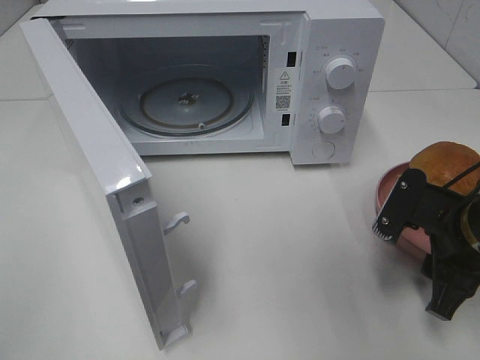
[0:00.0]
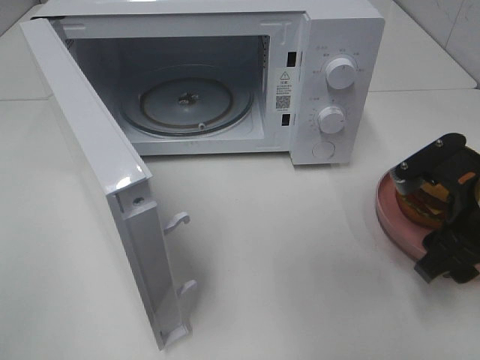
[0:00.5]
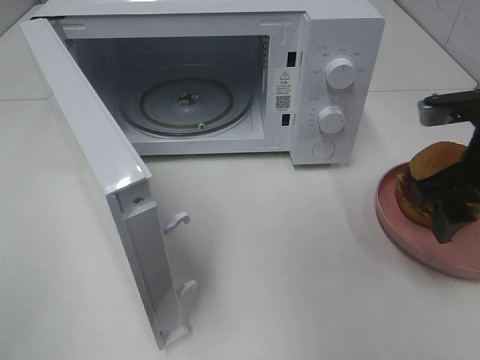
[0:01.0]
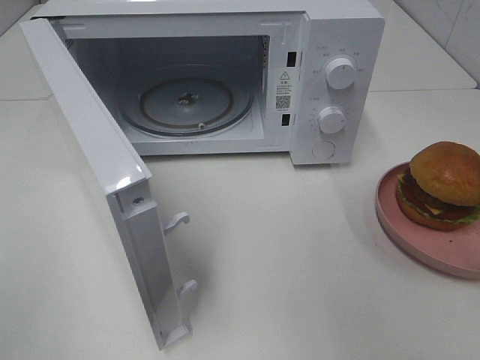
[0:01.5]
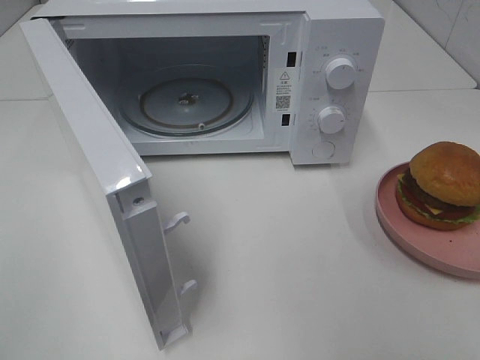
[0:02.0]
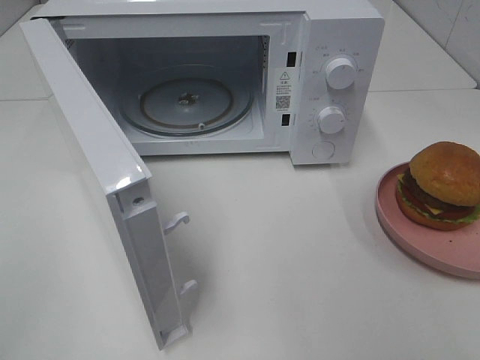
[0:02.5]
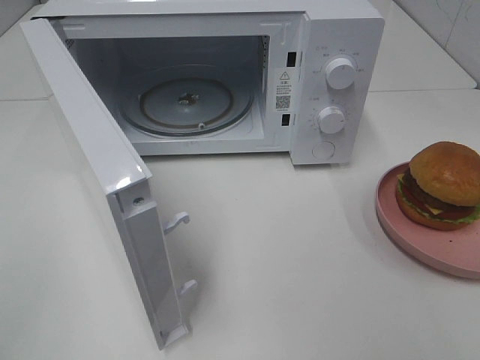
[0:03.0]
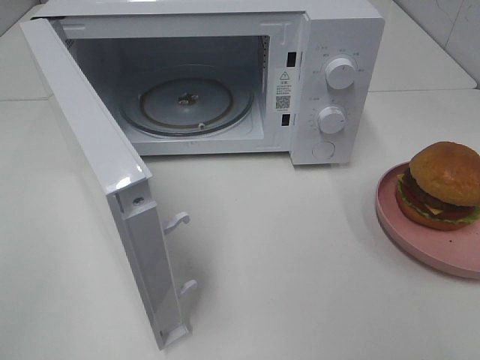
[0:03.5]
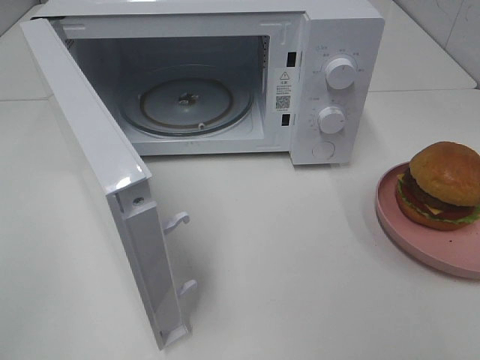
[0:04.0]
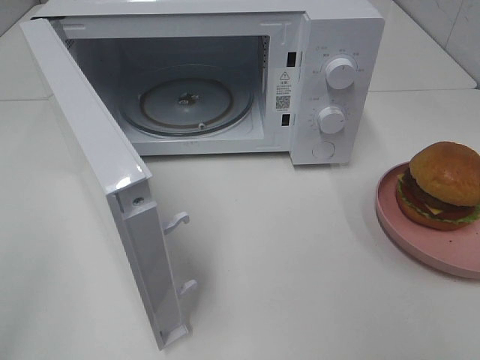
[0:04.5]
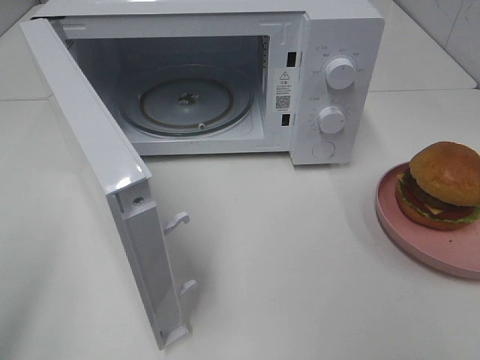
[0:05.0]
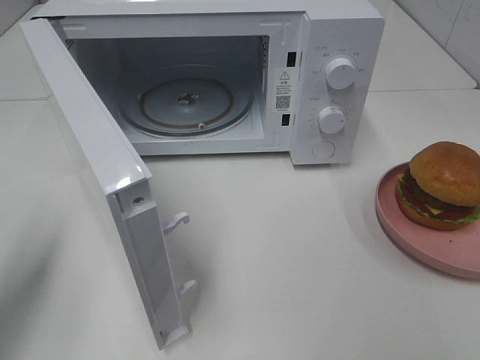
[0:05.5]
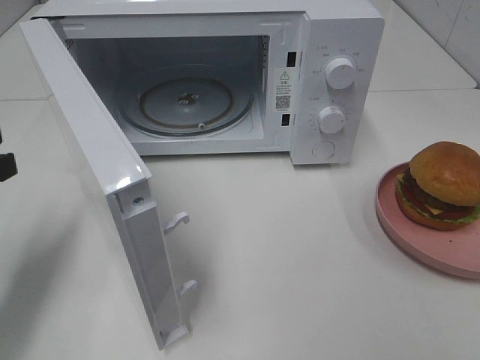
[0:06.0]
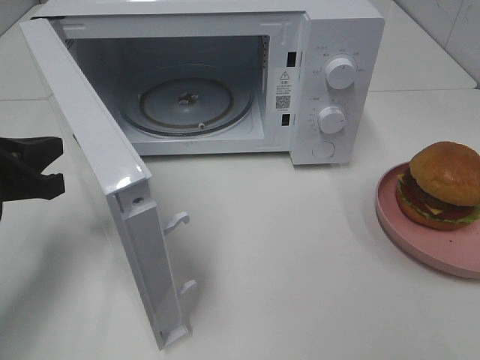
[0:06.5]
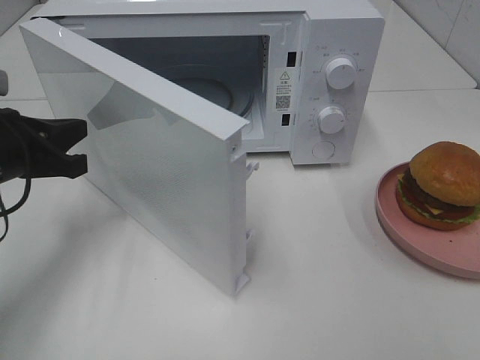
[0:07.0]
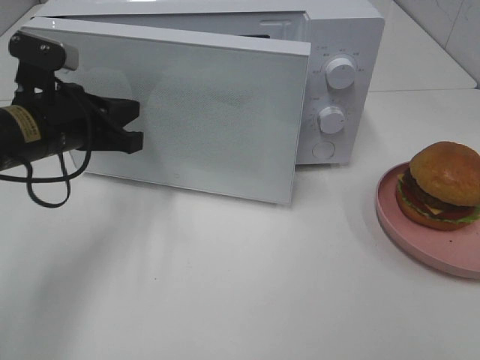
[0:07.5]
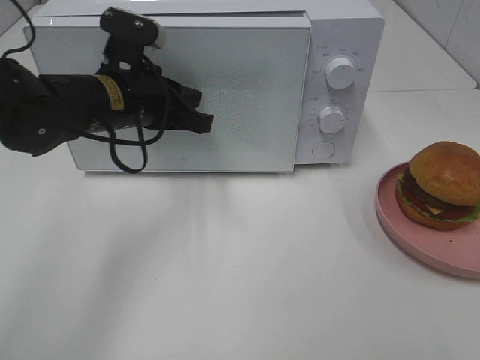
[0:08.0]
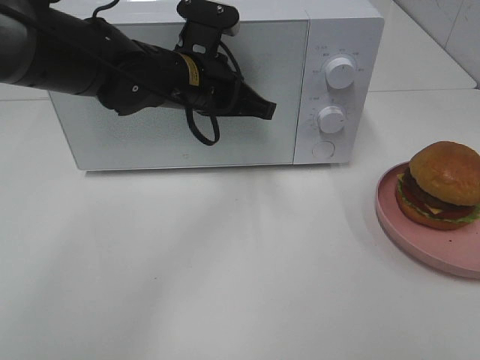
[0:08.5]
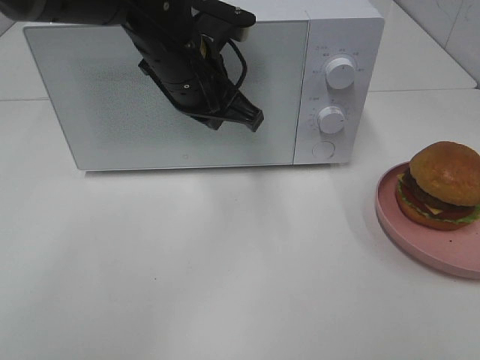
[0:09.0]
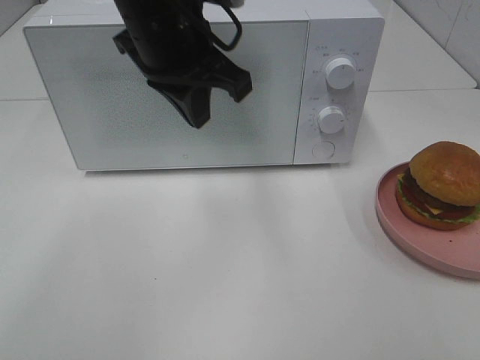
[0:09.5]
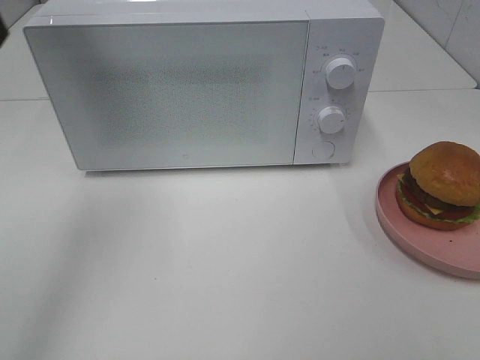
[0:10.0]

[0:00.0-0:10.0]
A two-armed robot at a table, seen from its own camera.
Task of the whole recording: Heat the burger.
Step, 0:00.0 to 0:08.5: Left hand: close the microwave door.
0:00.0 to 0:02.0: The right gripper is displaced upward and backward by about 20 cm.
0:04.0 to 0:06.0: The left gripper moves forward and downward, approximately 25 cm.
0:06.0 to 0:08.0: The left gripper heads to the right and forward, covering some 20 cm.
0:08.0 to 0:10.0: The left gripper travels upward and to the left by approximately 25 cm.

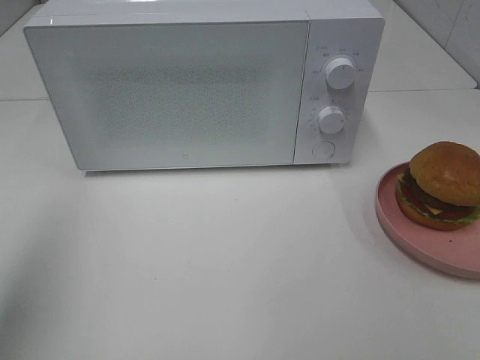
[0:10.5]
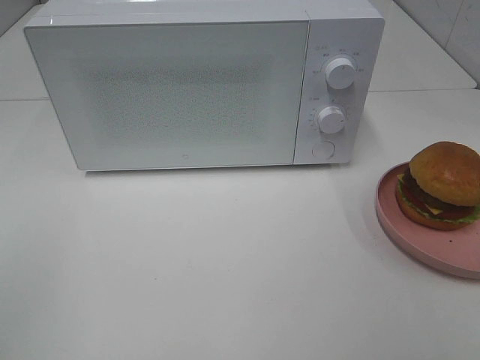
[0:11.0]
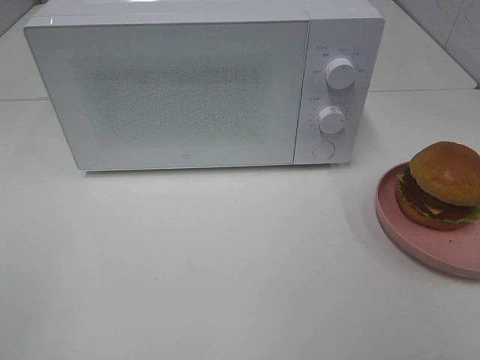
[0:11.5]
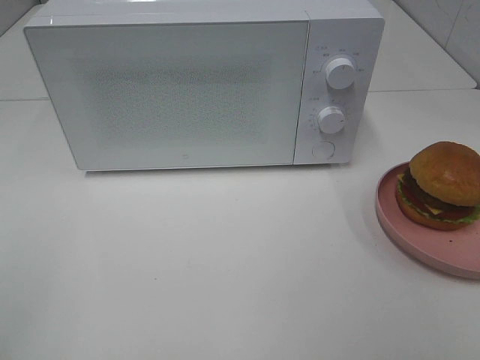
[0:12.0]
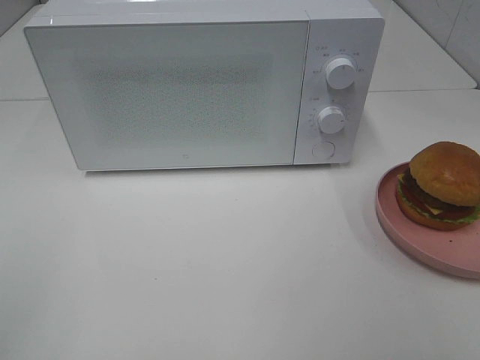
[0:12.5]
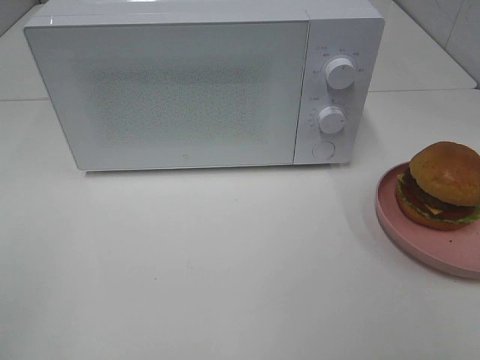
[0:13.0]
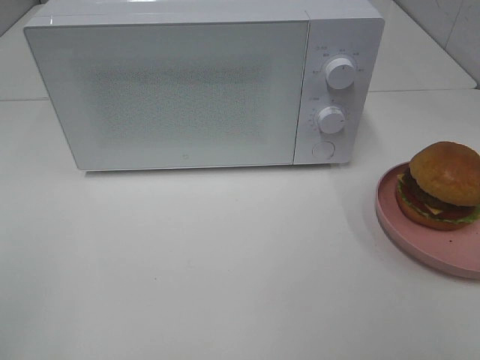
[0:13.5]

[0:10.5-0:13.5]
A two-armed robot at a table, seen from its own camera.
Task of the whole recording: Heat the burger.
0:10.5 to 0:12.0: The left gripper goes about 20 cm backward and downward.

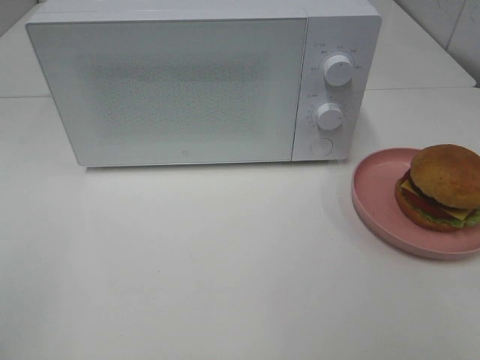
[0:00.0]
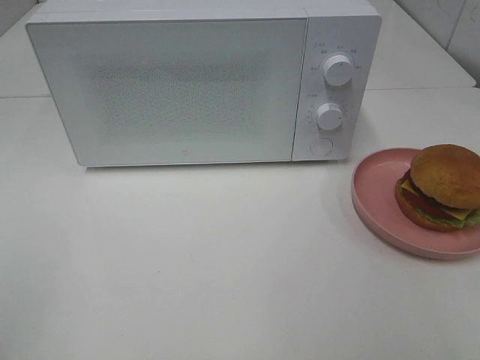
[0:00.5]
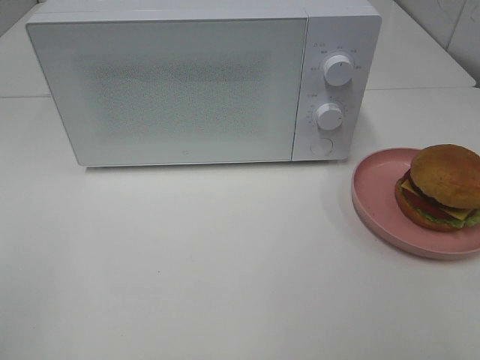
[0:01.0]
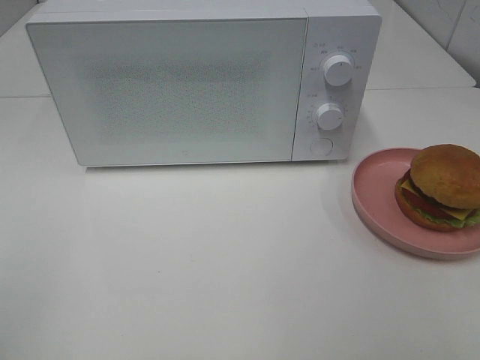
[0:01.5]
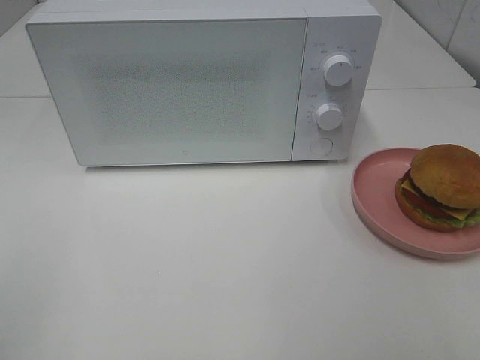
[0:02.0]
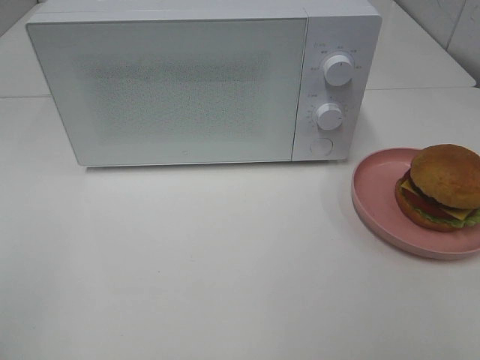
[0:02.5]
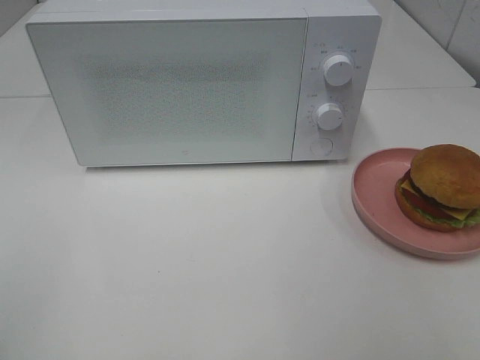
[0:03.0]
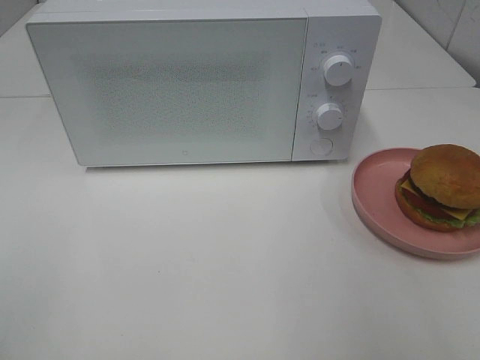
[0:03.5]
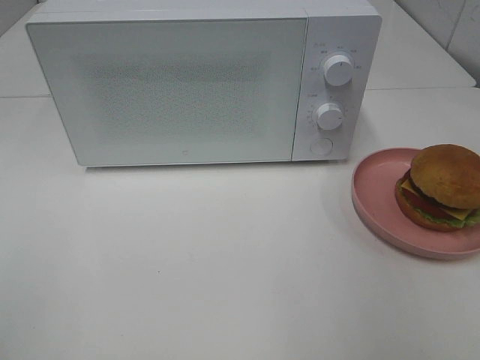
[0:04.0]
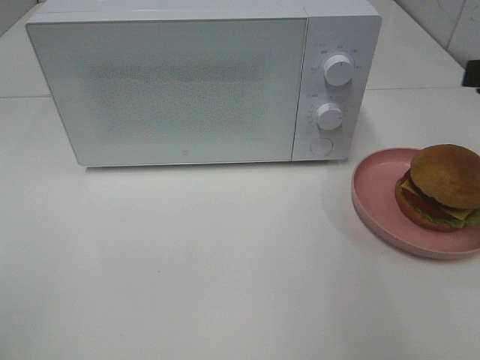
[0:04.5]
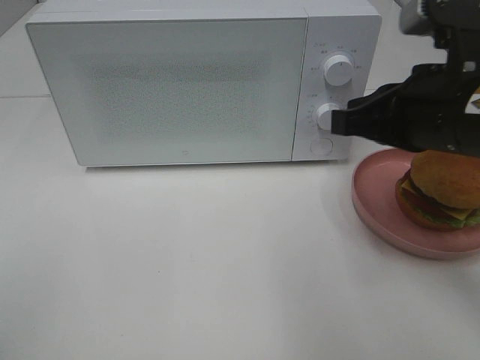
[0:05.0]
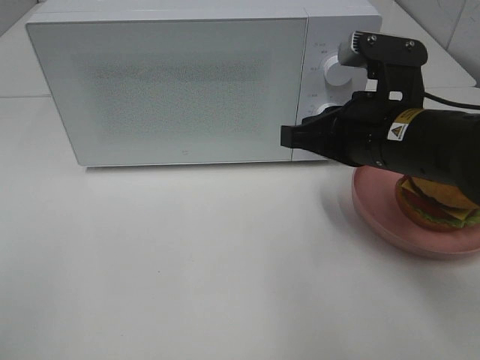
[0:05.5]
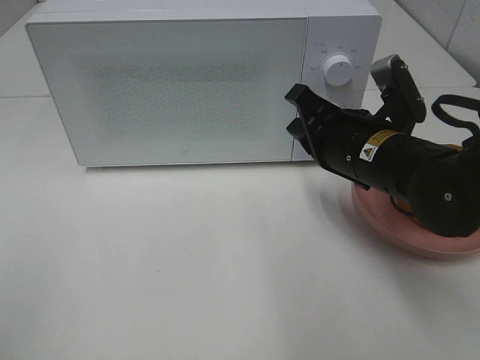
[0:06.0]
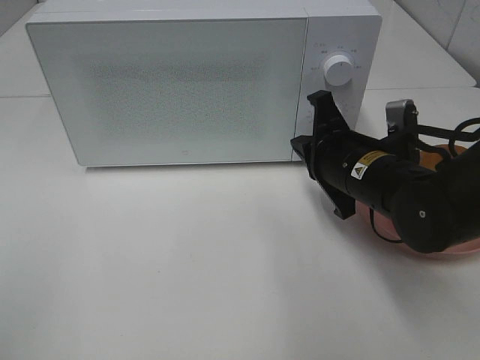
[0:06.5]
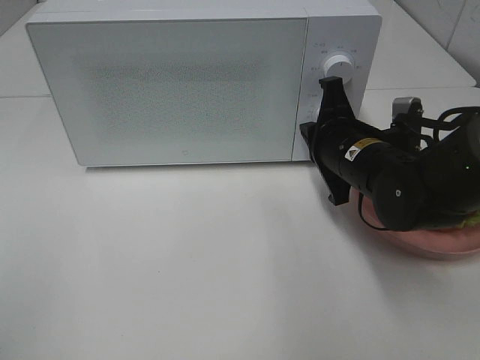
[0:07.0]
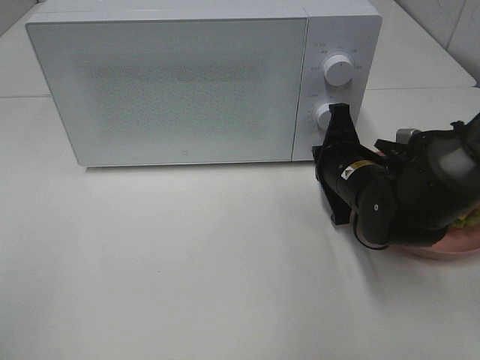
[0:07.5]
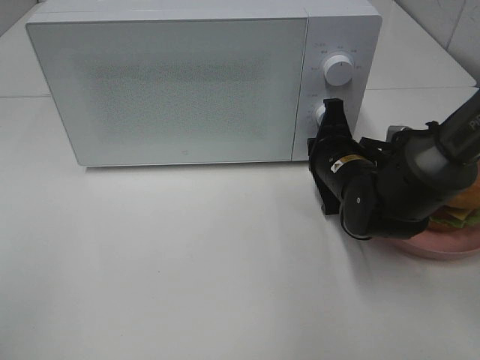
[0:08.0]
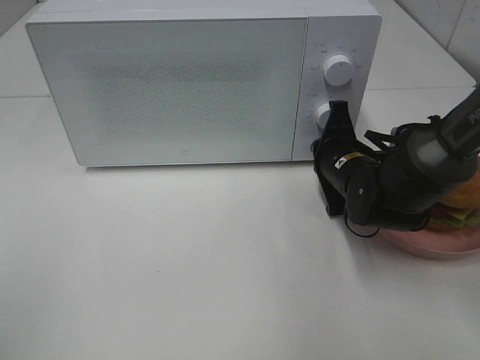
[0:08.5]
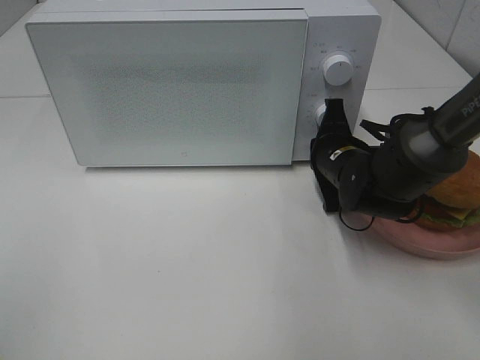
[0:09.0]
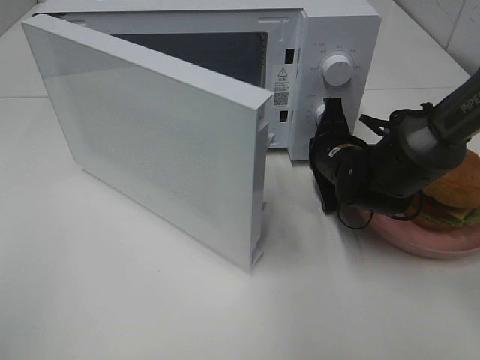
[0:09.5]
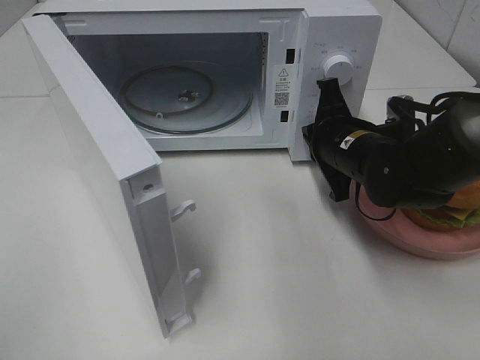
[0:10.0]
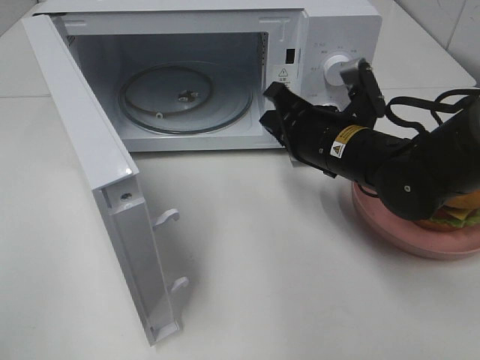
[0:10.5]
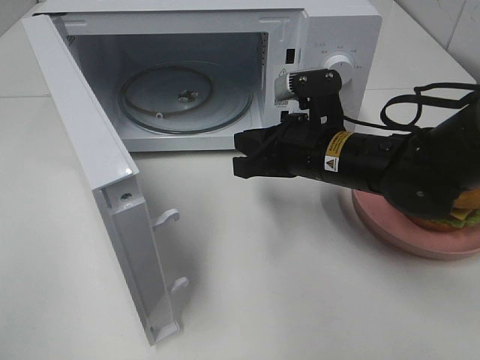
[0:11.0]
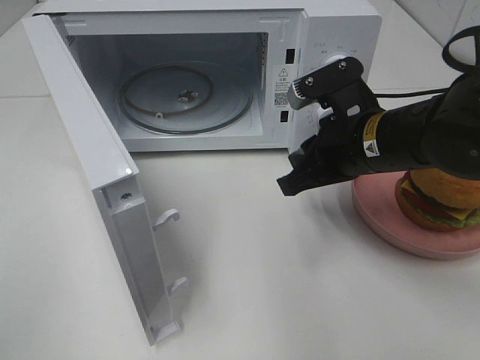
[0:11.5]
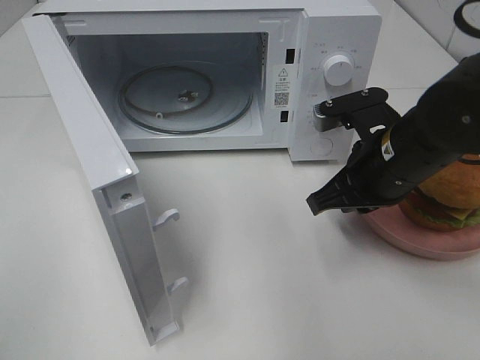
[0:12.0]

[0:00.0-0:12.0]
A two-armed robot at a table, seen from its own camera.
Task of the whole recording: Heat the burger.
Step, 0:00.0 to 0:09.5: Right hand: press the switch.
0:00.0 to 0:02.0: The two grippers keep their place.
0:04.0 to 0:06.0: The right gripper travels to the left, downward and forward by roughly 25 cm.
0:06.0 to 0:08.0: The right gripper travels downward and forward by about 10 cm.
0:10.0 to 0:12.0: The right gripper heads backward, covering approximately 5 cm.

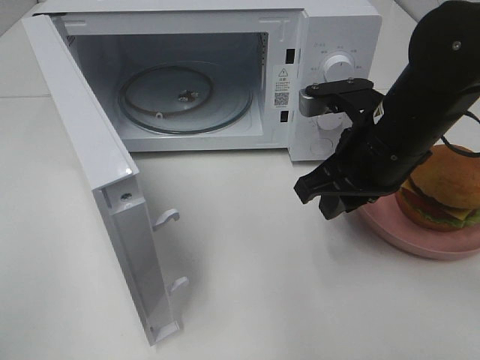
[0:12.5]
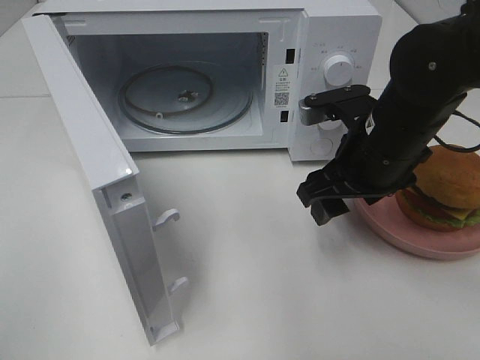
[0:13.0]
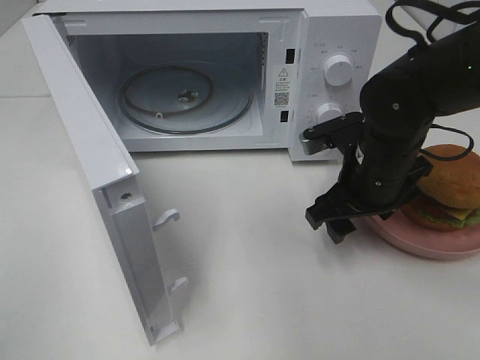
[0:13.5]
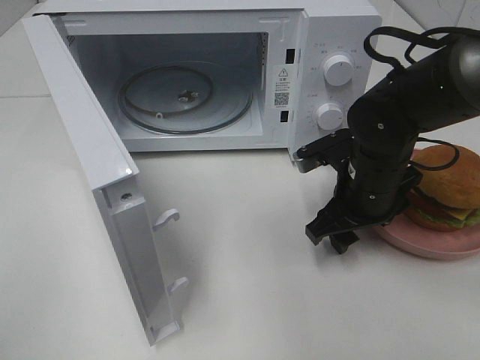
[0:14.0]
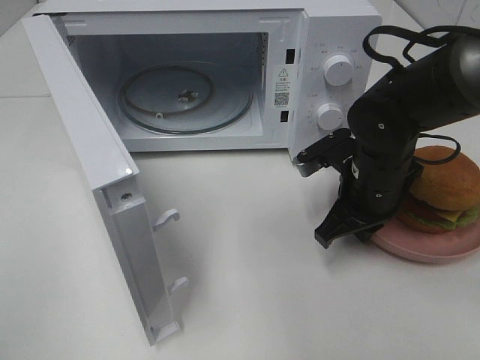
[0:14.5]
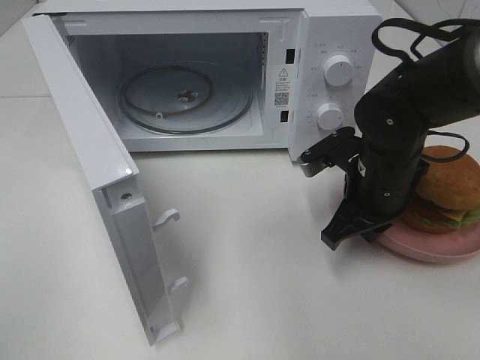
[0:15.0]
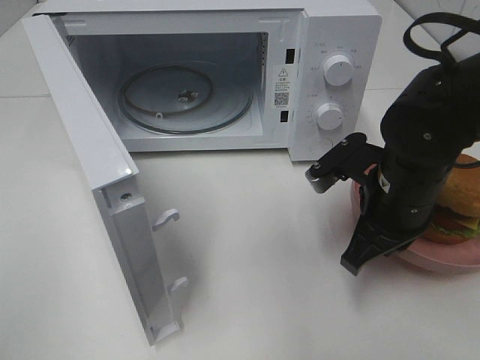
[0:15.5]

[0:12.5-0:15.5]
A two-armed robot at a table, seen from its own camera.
Task of the whole recording: Heat the burger.
0:12.5 to 0:14.0: The right gripper goes roughly 10 cm downward, and opens.
0:14.0 to 0:15.5: The right gripper moves about 5 cm, and closes.
